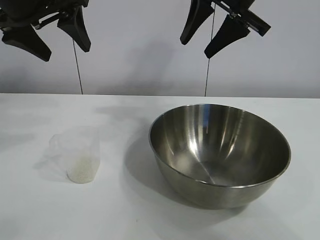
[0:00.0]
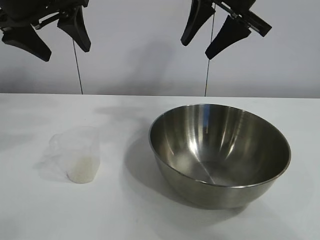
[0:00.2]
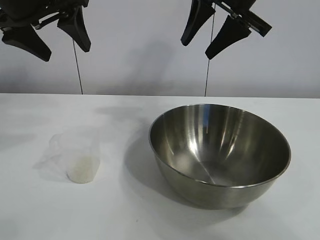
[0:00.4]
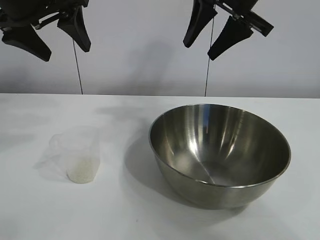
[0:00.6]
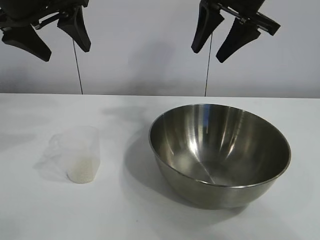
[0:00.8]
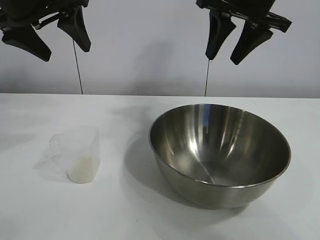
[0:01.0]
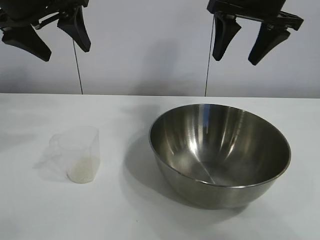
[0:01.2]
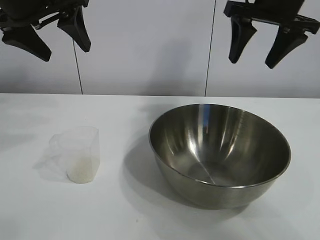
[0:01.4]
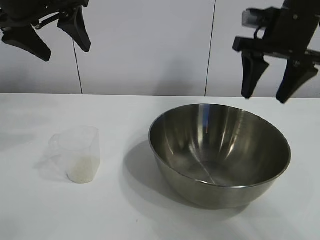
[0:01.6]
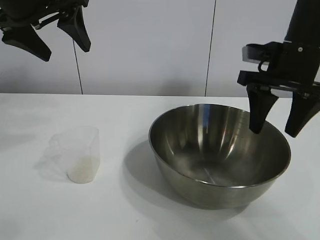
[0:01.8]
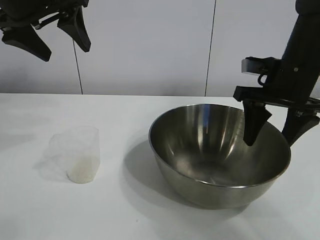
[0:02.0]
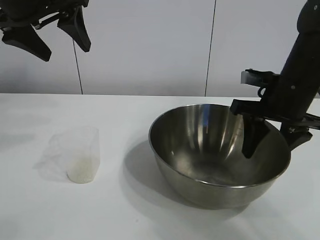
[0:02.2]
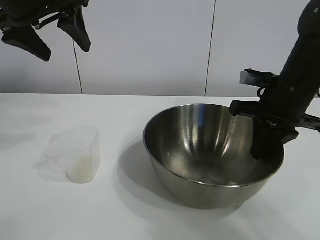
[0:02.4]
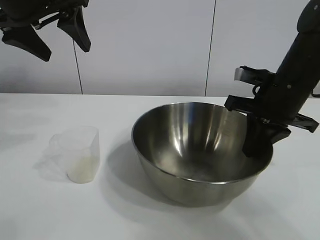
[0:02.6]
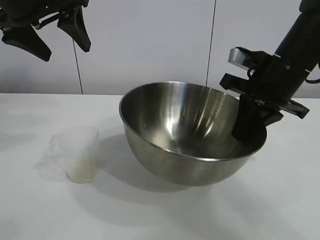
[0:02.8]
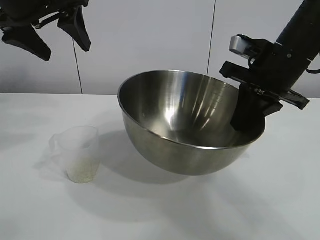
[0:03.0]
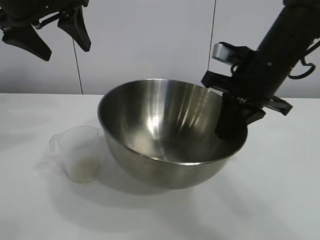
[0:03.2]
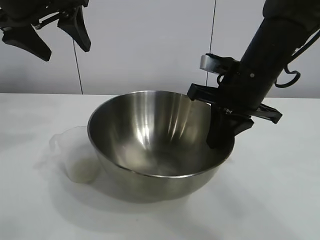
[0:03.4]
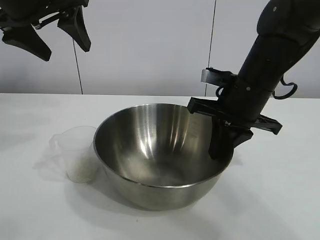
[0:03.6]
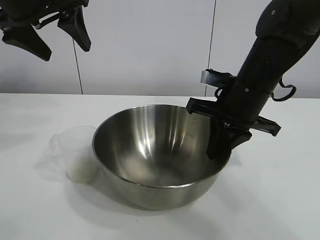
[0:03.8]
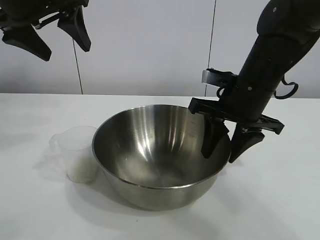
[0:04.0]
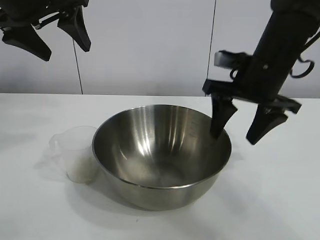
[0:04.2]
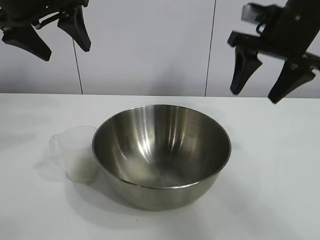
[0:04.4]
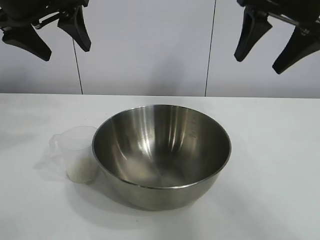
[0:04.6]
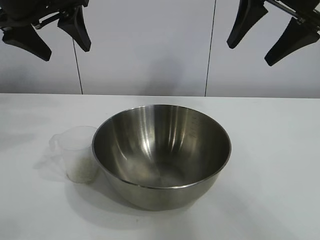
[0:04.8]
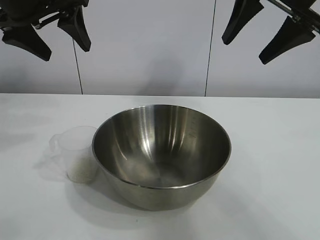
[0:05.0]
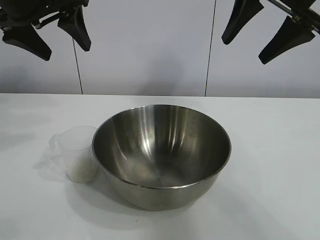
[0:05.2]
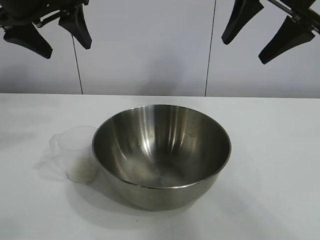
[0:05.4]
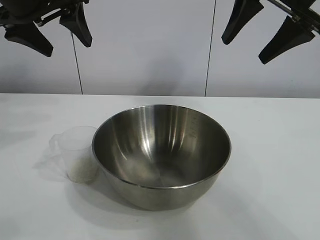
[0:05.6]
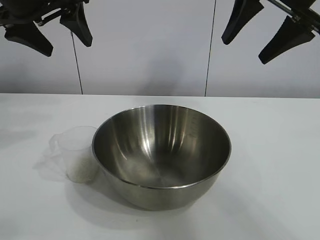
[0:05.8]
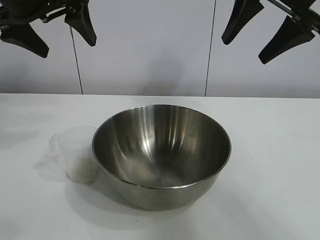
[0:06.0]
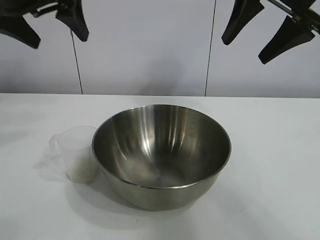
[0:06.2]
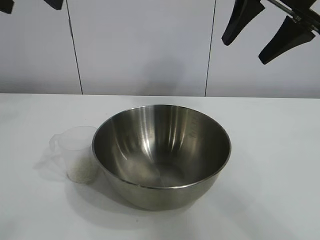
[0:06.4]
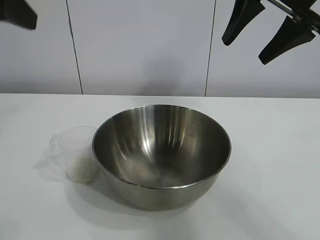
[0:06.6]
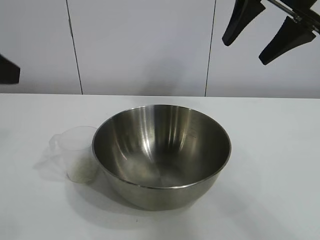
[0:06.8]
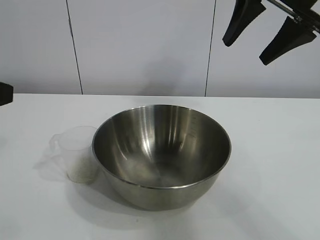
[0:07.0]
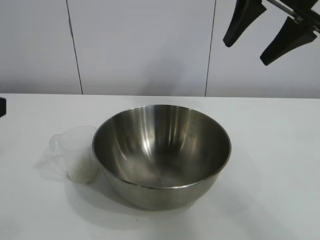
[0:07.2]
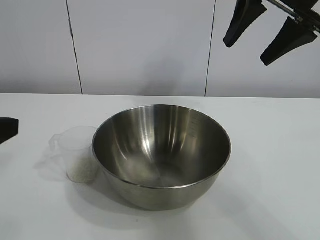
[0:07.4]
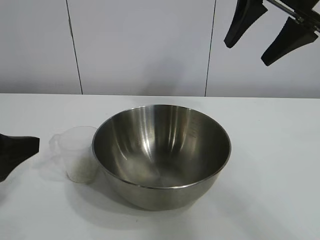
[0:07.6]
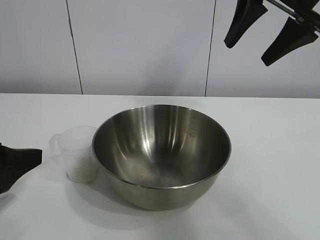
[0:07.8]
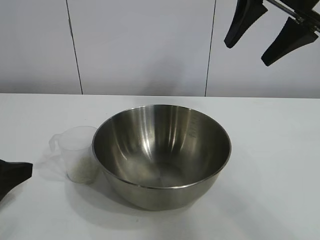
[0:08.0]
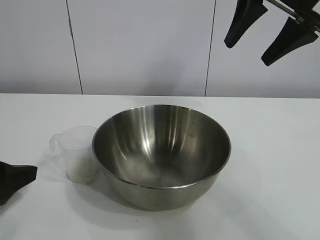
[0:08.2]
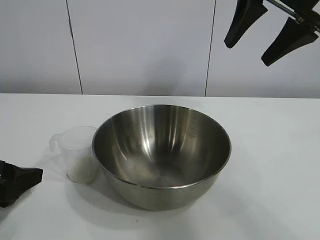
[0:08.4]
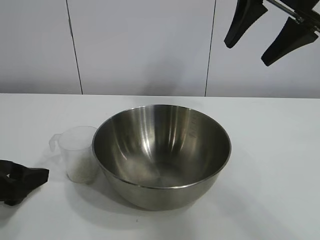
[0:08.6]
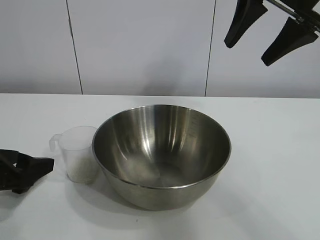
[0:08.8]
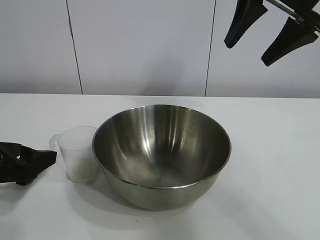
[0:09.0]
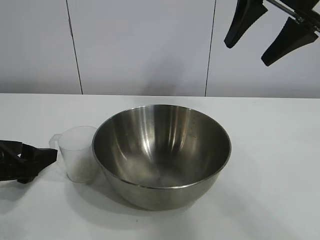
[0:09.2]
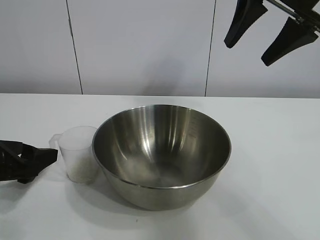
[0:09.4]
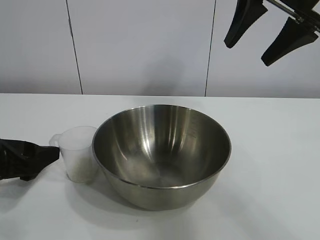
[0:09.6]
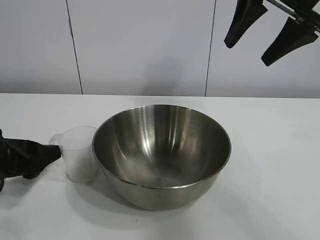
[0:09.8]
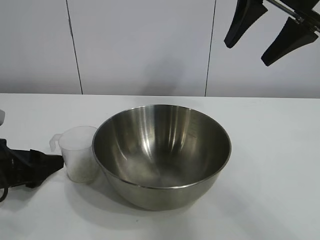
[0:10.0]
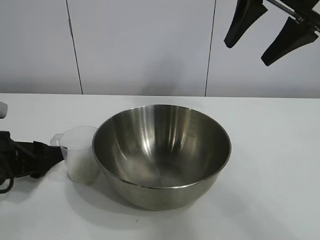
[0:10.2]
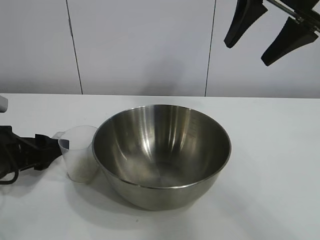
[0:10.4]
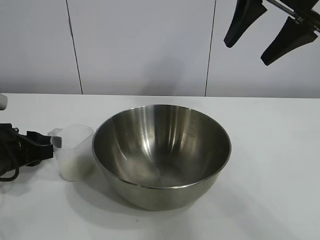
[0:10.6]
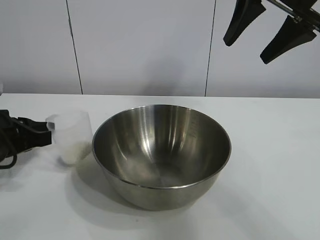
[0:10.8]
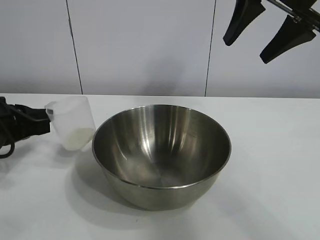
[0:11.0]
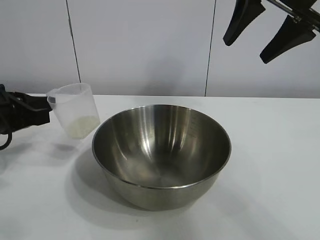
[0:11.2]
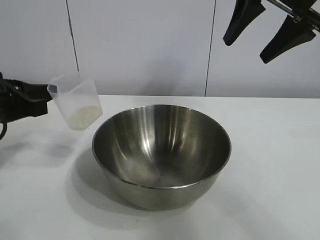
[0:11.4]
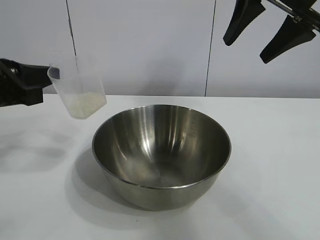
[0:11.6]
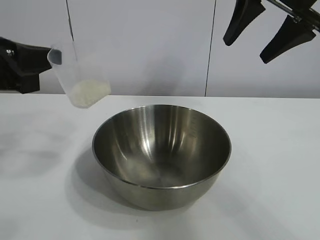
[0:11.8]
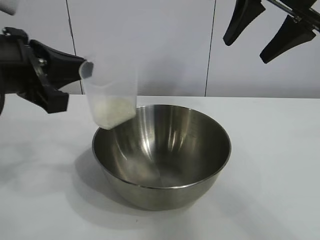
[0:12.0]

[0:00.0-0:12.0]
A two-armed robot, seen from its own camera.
Task of the whole recording: the right gripper grasp the rice container and place it in the center of the table, the left gripper grasp the rice scoop and pour the rice into the rice container.
Step, 0:00.6 to 0:04.0: Move the bowl in the center of view with right gripper.
Step, 0:04.2 to 0:10.6: Grasp the cup with rice in it with left gripper.

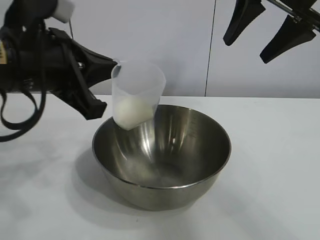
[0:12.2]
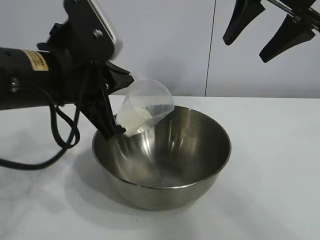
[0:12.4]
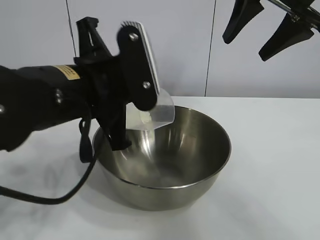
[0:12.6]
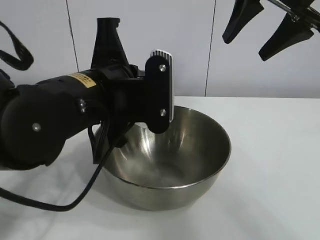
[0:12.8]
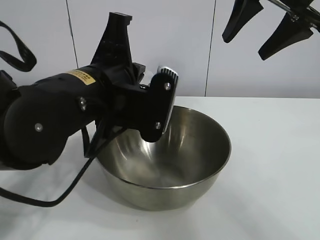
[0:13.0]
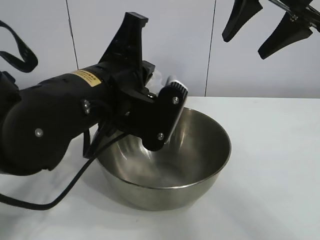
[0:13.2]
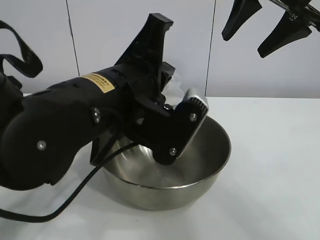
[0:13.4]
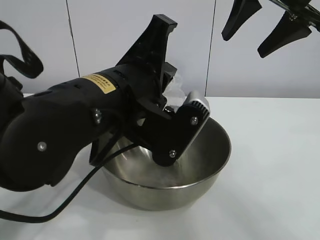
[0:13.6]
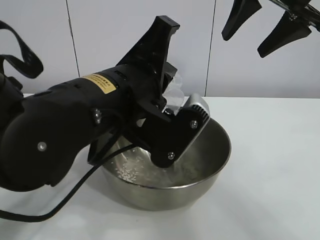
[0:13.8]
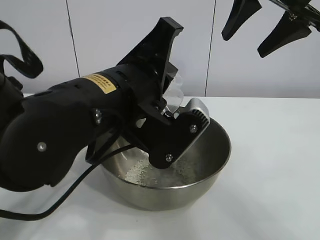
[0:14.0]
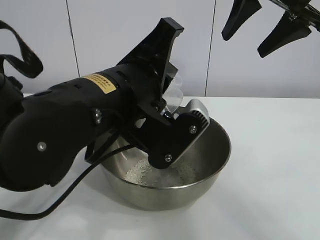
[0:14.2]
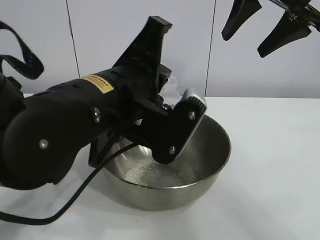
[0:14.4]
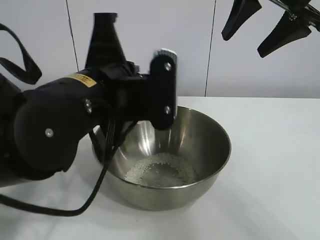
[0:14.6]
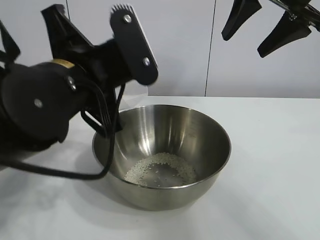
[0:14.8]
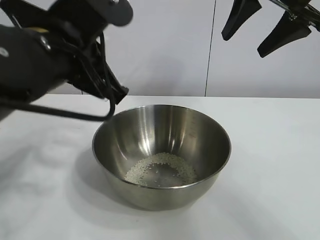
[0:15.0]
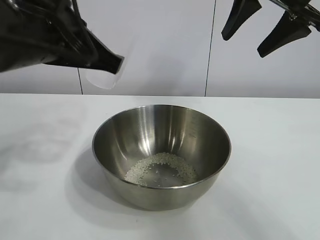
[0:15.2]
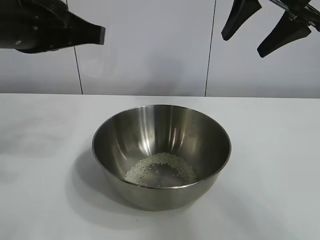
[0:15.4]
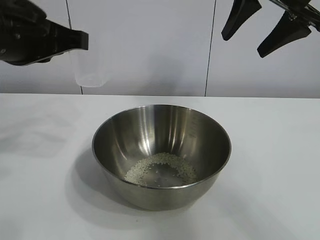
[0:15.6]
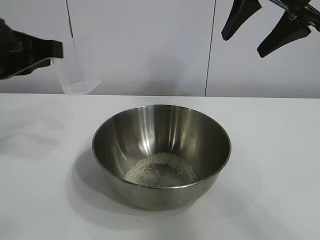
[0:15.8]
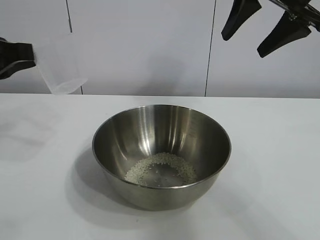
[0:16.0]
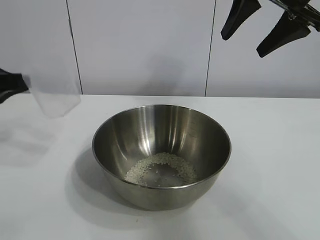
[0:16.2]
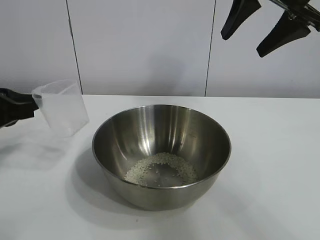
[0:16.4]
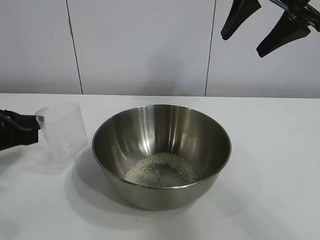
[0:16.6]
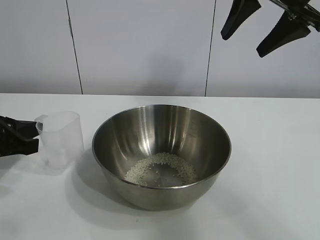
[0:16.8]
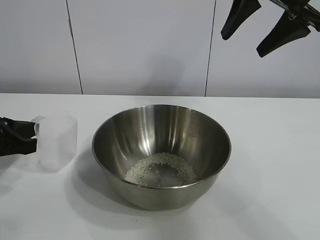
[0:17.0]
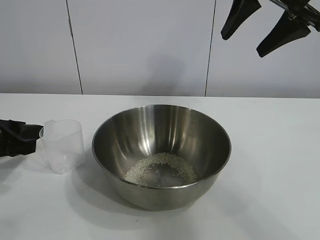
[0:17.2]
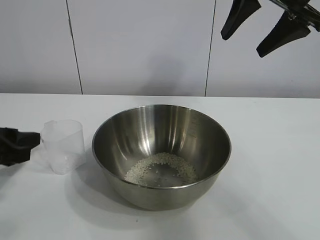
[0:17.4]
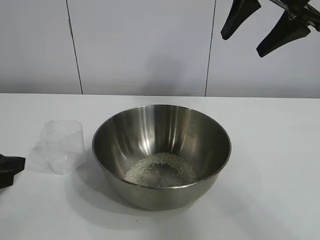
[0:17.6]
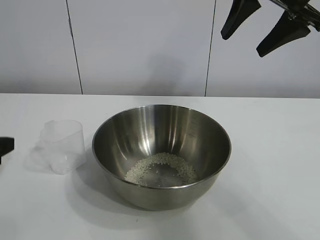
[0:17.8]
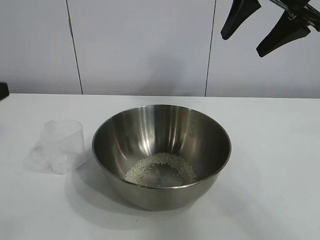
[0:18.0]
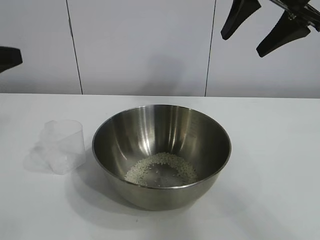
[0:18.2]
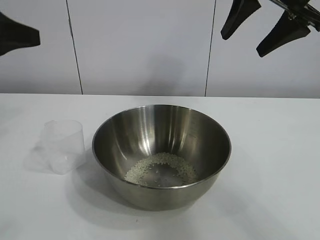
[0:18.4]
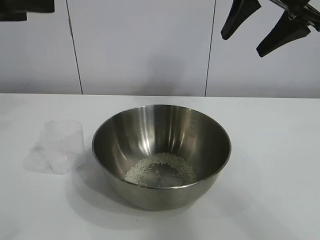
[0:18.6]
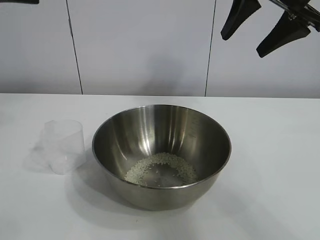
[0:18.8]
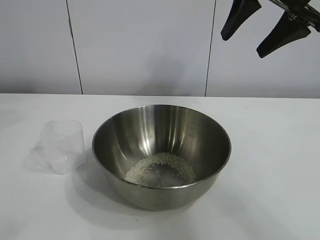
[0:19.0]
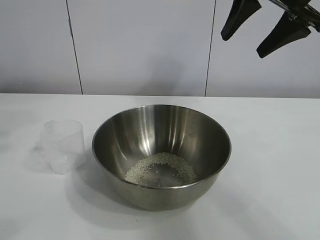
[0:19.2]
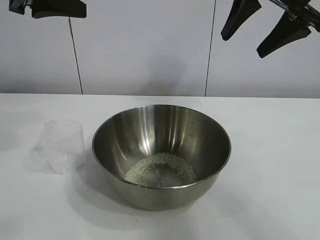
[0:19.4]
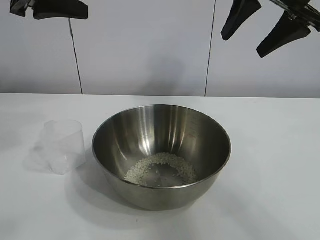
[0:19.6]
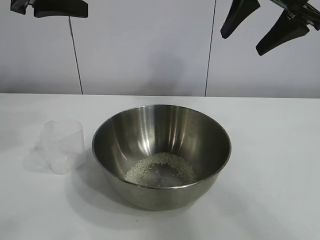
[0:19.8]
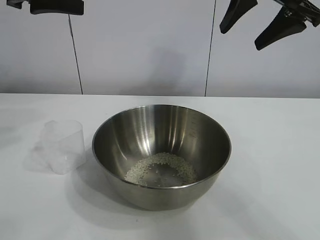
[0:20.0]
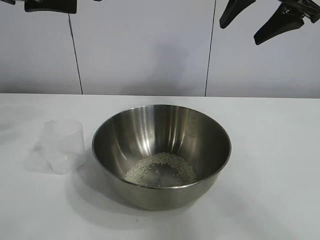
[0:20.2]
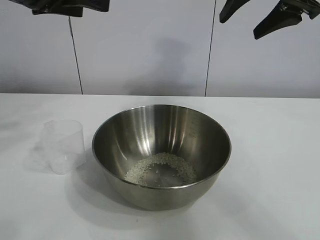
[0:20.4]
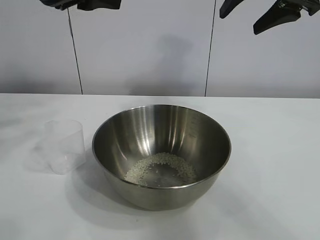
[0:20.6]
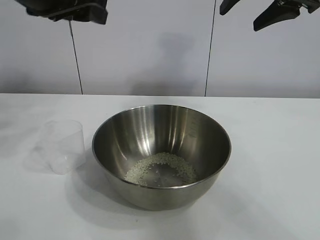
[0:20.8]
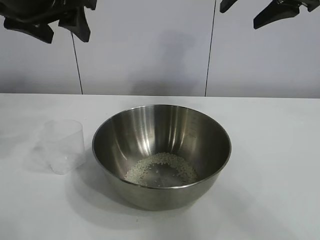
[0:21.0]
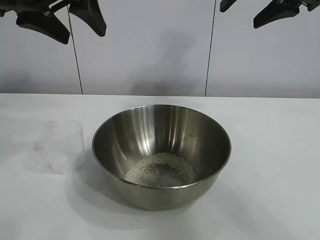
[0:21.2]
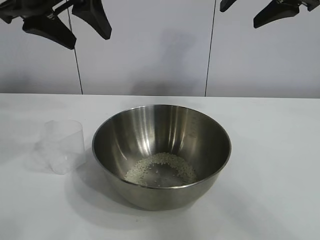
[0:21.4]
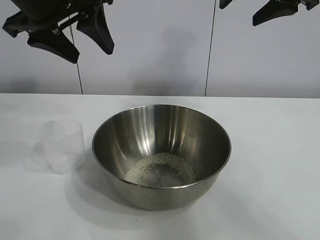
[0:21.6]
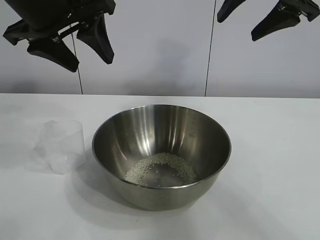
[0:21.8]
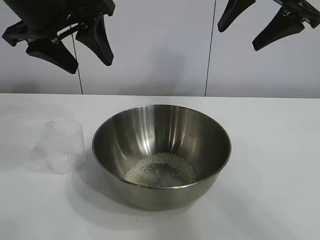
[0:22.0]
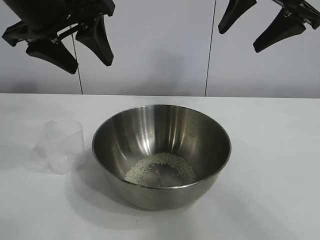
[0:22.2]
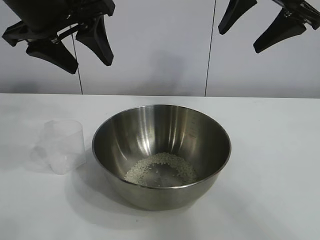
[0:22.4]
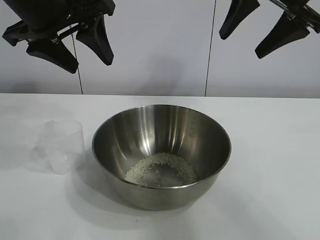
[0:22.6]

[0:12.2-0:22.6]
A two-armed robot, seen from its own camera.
Task of the whole recording: the right gripper grasp the rice container and place it in the center of the table, the left gripper grasp the rice scoop and pour the rice into the rice container.
Step, 0:12.2 to 0:14.2: Pour the rice from the cup into the bowl with the left gripper.
Step, 0:14.4 to 0:17.4: Place the cup on the table with the left gripper.
